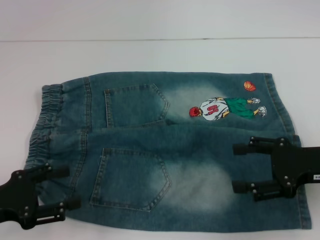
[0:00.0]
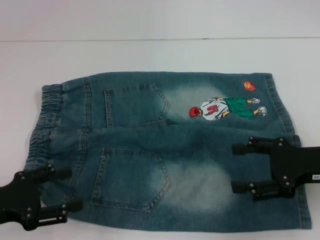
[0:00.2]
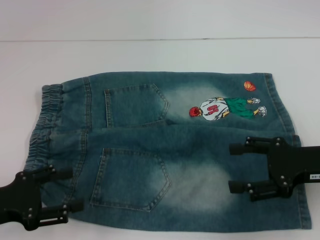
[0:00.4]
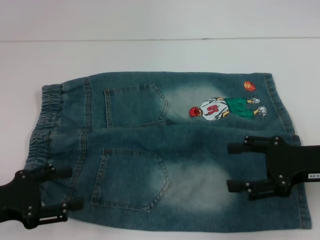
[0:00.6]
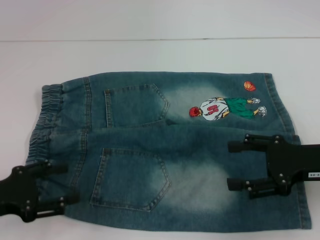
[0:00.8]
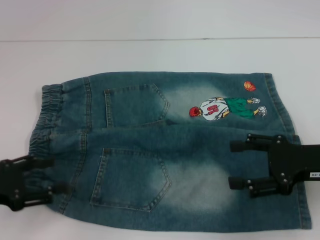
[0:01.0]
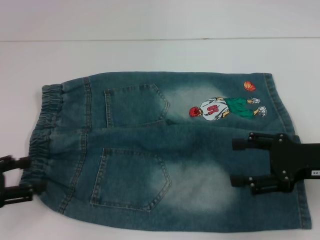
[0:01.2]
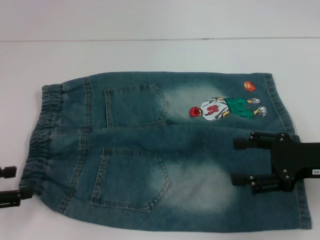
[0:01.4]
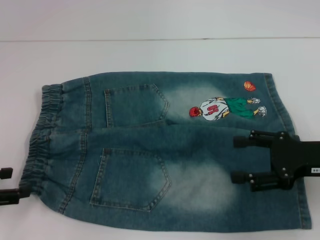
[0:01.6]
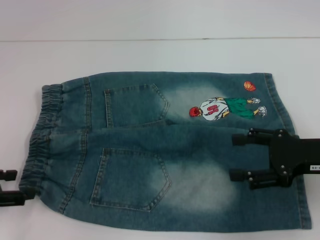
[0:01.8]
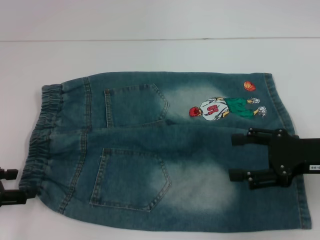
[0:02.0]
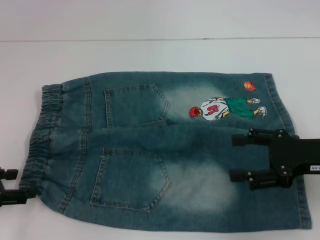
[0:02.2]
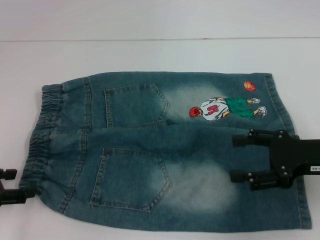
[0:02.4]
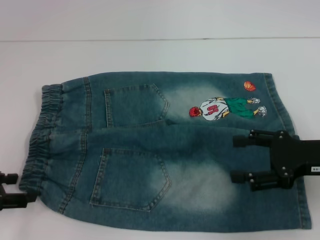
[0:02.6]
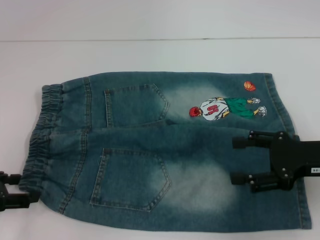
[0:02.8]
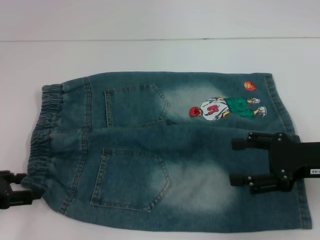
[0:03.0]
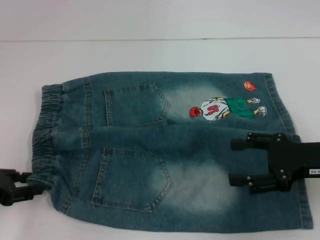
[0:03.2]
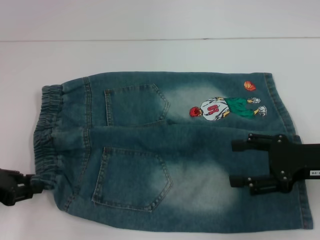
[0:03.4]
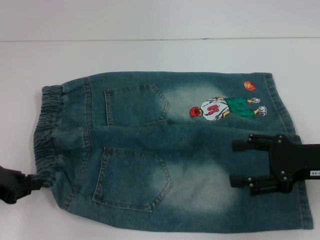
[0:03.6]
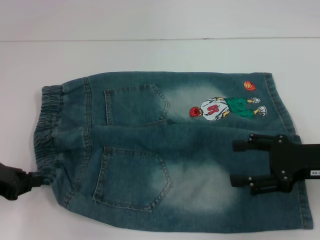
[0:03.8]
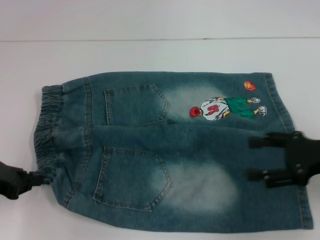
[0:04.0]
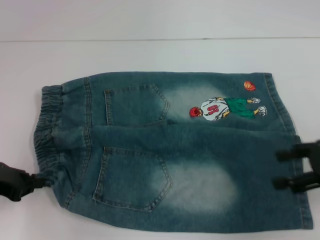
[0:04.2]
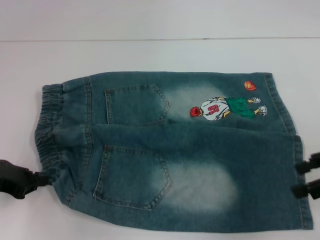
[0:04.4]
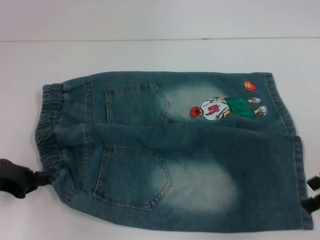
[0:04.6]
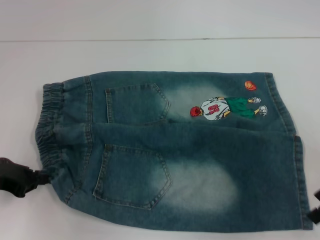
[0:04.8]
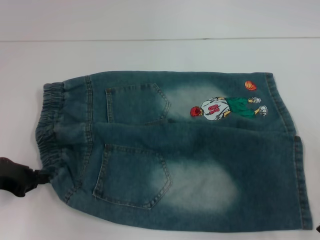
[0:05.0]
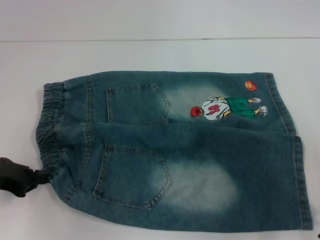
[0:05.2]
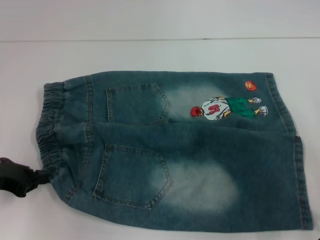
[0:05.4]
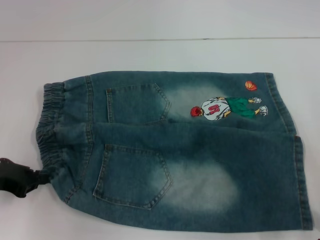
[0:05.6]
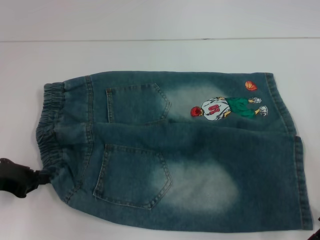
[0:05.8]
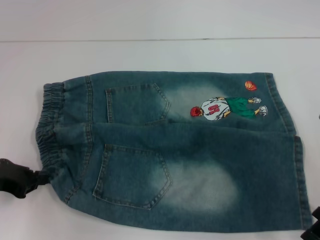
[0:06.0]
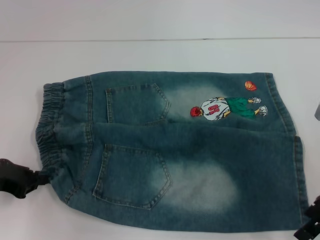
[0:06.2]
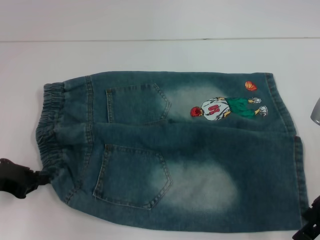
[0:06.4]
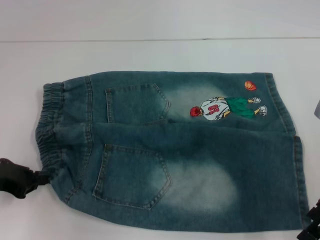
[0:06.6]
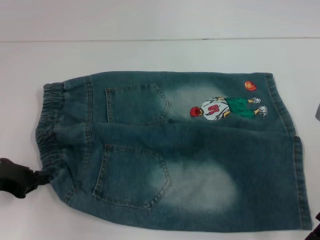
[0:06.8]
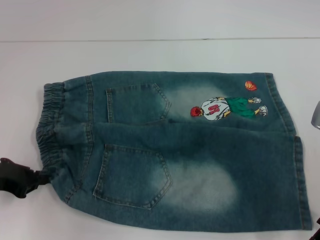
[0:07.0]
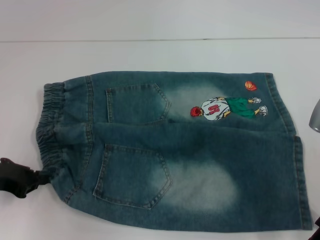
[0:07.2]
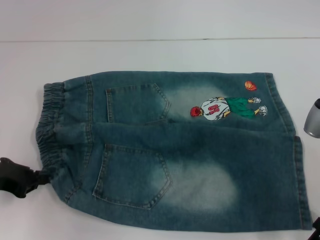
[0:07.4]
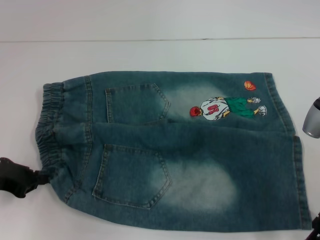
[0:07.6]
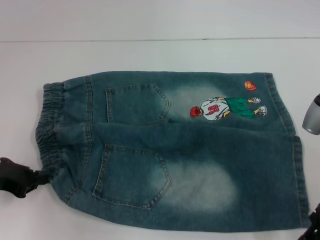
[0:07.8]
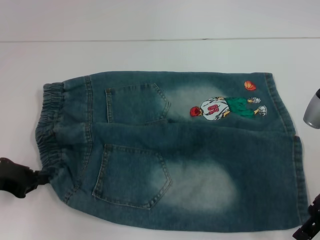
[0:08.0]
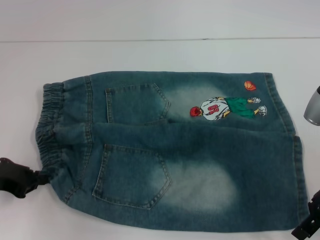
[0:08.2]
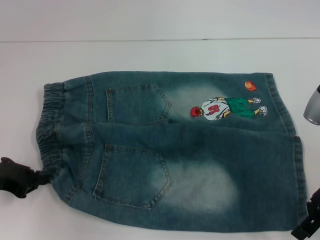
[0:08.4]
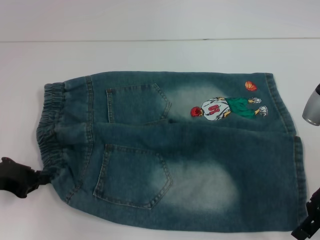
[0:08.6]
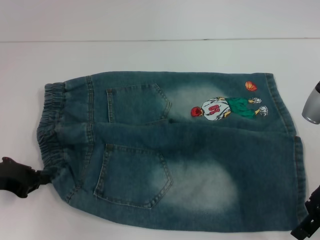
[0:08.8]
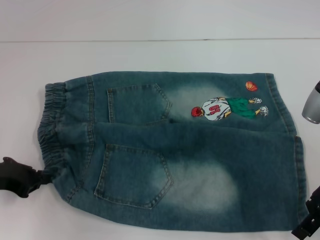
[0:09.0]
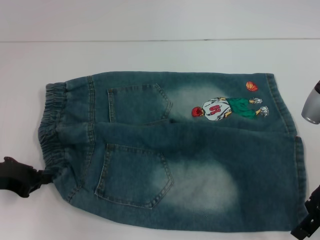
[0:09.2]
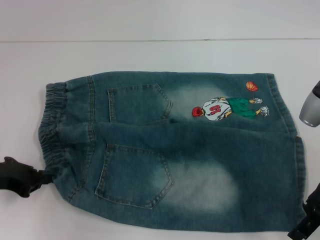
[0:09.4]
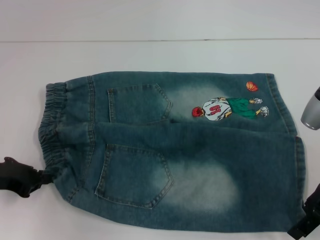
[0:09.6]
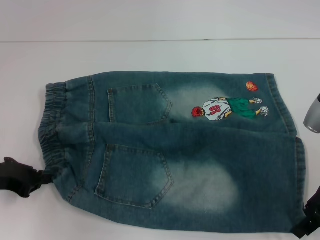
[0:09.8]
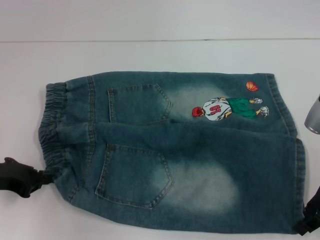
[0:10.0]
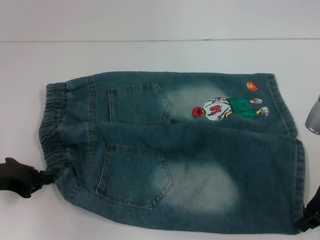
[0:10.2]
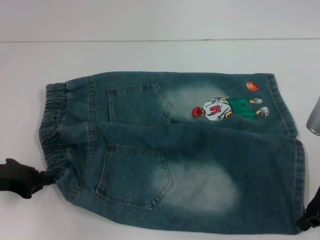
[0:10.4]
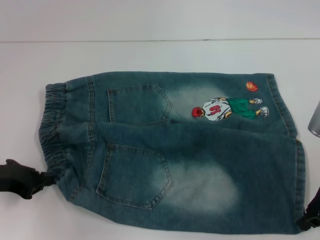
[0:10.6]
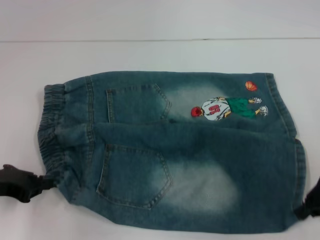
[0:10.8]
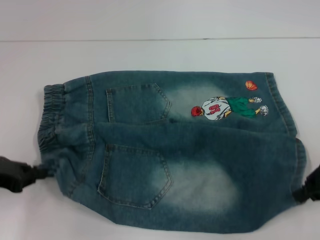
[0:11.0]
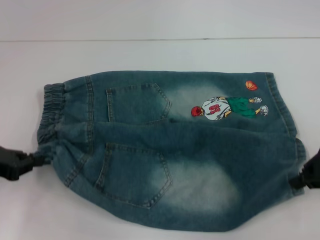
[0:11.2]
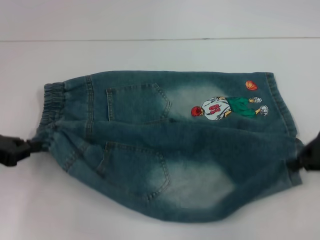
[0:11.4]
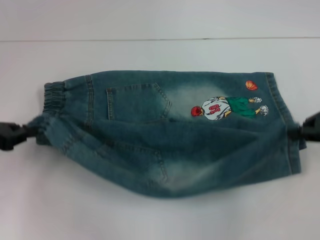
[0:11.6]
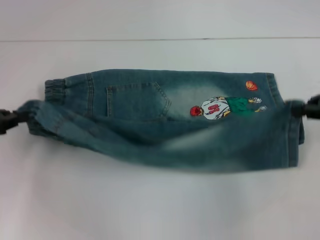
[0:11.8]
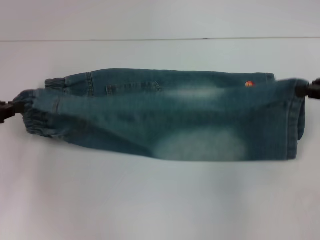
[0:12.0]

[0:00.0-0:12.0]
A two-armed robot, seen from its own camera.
Step, 0:00.0 to 0:03.8: Hold the lower left waistband with your left hand.
Step, 0:04.0 to 0:10.6: Grab the lower right pant leg with your right hand.
0:00.0 to 0:01.6: The left gripper moves about 5 cm.
0:01.6 to 0:03.0: The grippers stay close to where they were, moving slightly.
0:03.0 to 0:04.4: The left gripper closes; the right gripper is displaced upward by some 5 cm.
0:04.4 to 0:06.0: The right gripper shifts by some 5 cm.
0:06.0 to 0:09.0: The grippers stay close to where they were, moving slightly.
0:09.0 to 0:10.4: The right gripper closes.
0:10.4 to 0:12.0: The right gripper goes some 10 cm upward and to the right. The left gripper shifts approximately 5 cm upward.

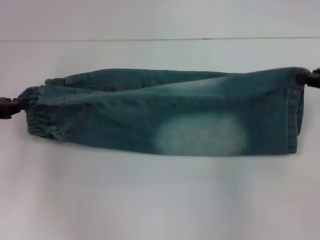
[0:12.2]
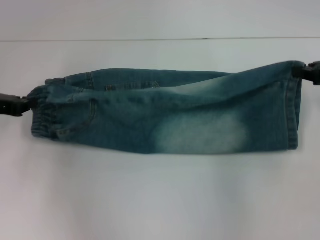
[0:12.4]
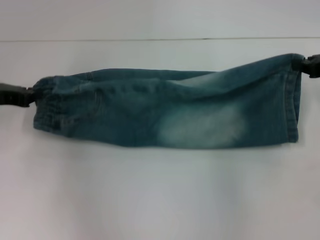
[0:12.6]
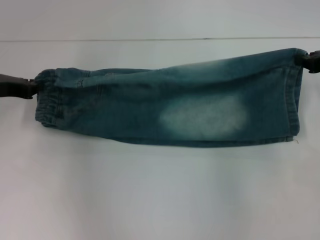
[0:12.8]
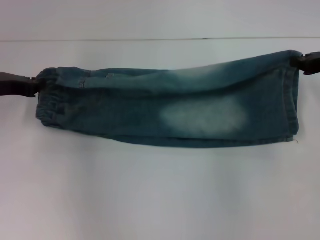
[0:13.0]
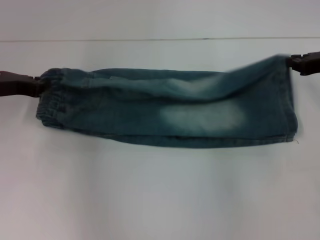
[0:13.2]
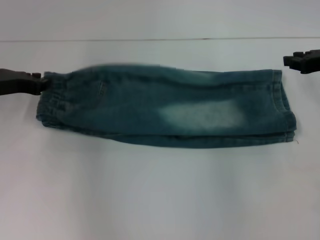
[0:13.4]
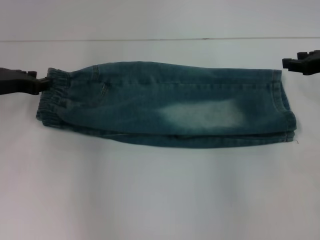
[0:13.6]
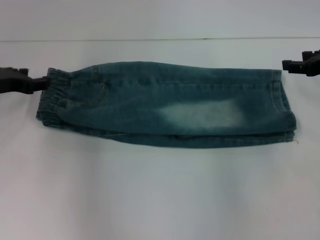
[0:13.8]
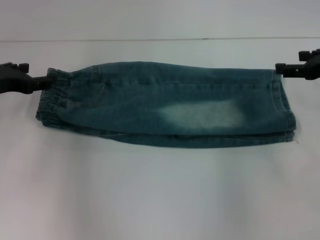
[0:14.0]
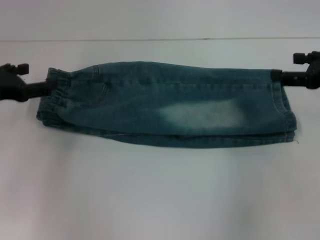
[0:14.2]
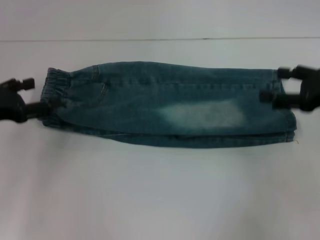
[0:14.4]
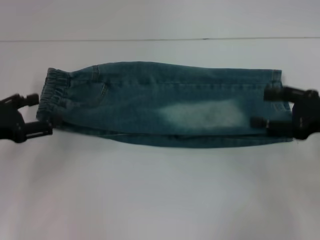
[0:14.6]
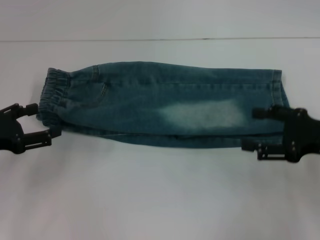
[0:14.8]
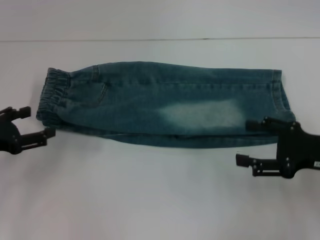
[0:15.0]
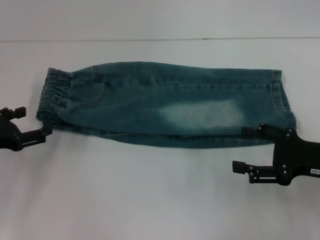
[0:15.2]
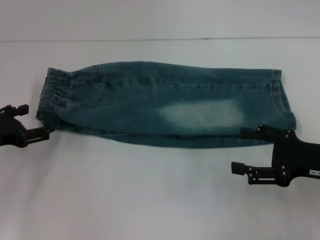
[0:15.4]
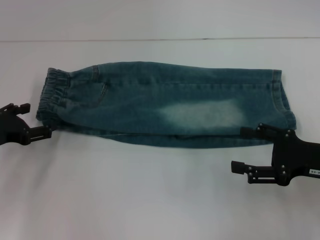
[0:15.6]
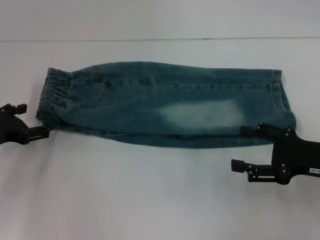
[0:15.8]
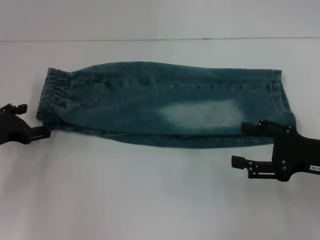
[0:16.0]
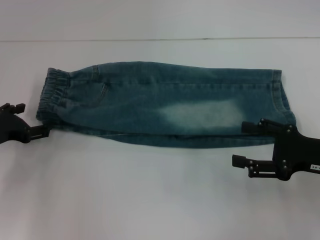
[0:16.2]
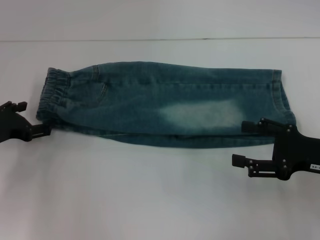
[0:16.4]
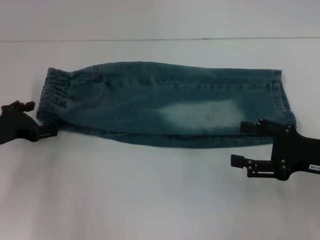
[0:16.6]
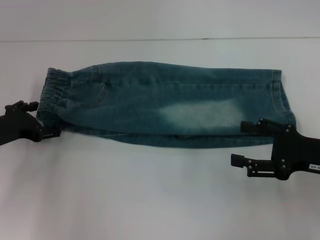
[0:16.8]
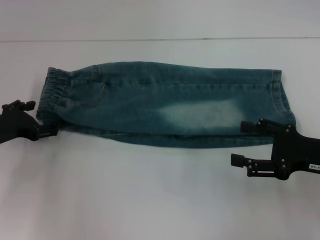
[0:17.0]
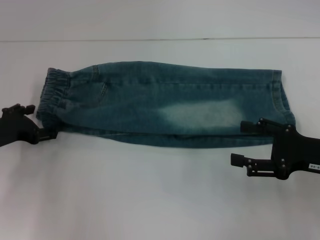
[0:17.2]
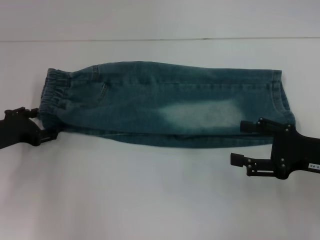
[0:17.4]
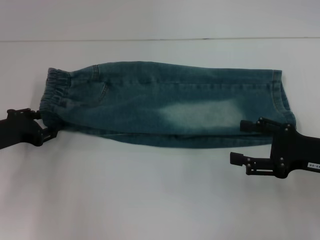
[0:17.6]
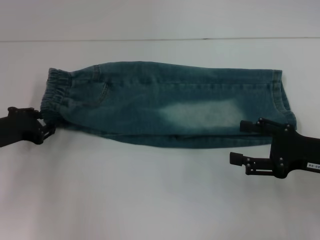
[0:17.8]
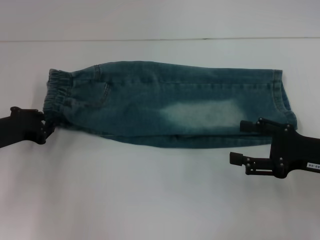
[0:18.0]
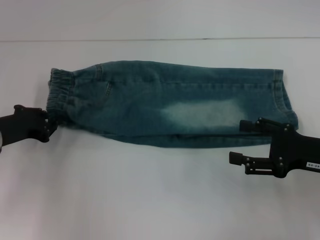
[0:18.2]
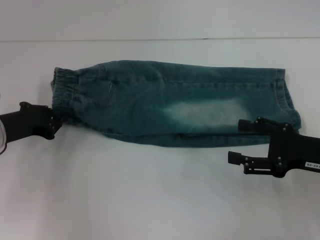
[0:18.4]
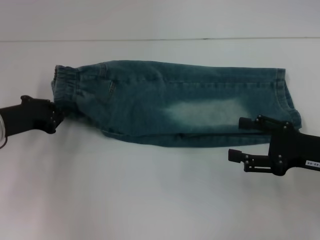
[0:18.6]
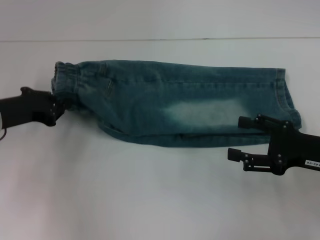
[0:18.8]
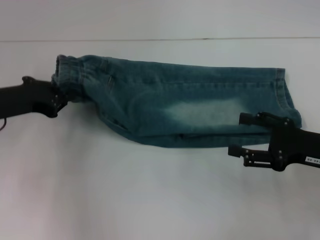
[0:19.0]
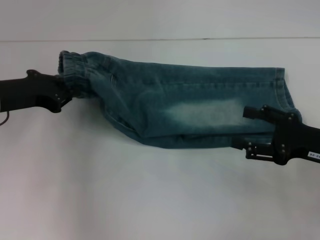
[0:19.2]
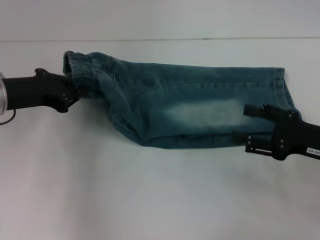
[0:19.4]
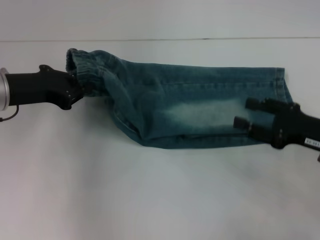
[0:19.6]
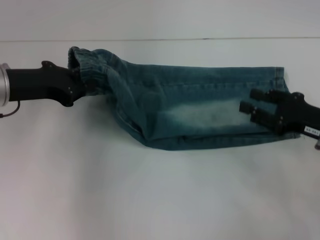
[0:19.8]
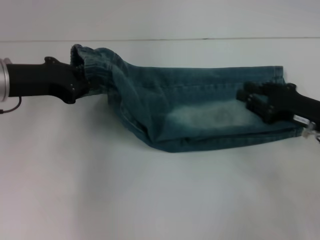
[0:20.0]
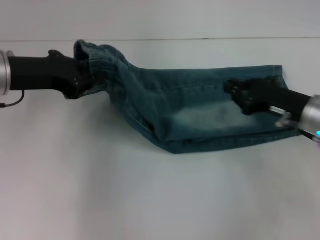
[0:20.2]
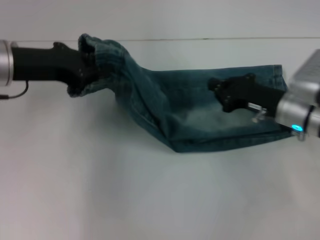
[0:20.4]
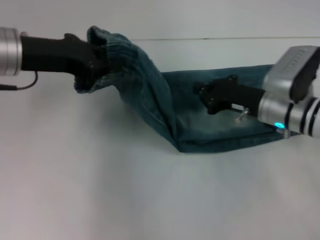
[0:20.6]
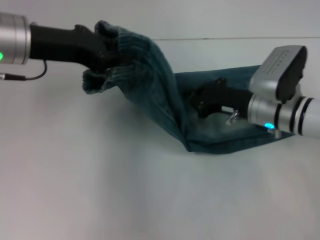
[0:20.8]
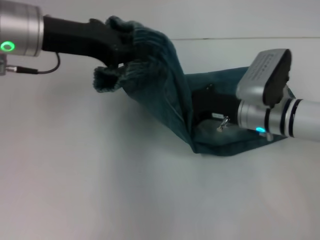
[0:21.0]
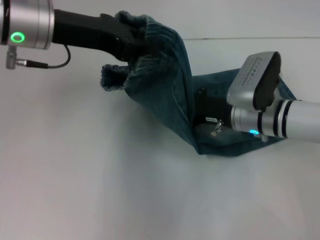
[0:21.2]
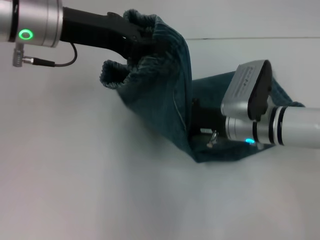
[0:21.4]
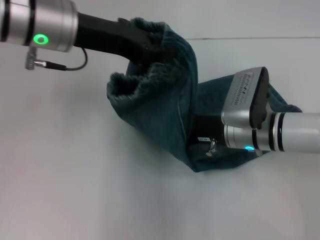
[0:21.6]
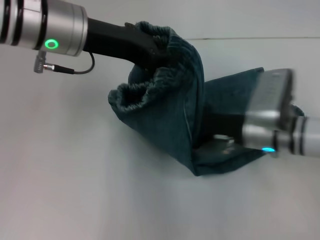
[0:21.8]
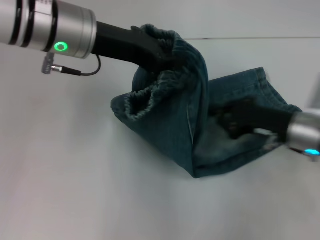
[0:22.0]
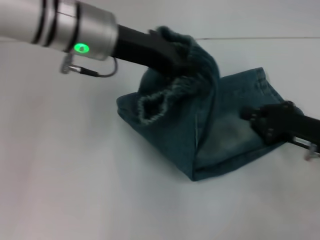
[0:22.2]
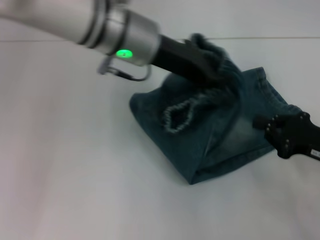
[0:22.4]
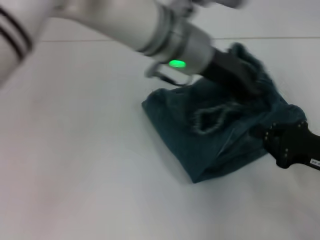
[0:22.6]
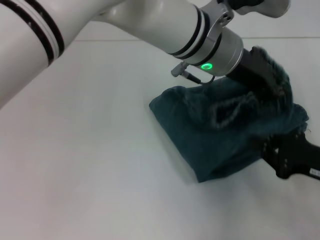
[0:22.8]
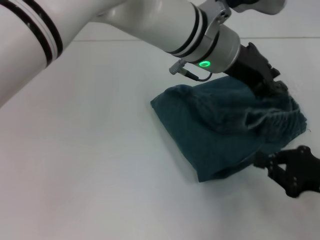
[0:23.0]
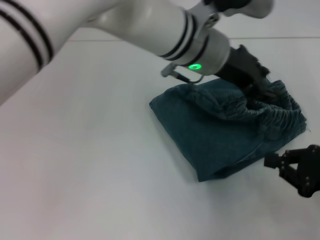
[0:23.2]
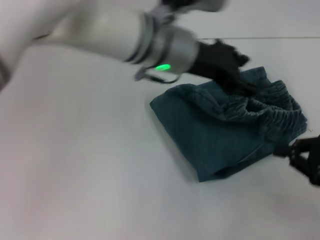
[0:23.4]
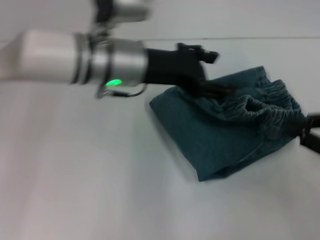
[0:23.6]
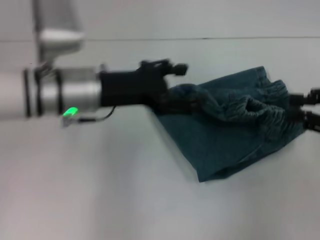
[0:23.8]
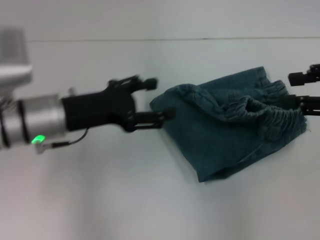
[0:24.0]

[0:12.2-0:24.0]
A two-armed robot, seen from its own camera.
Step, 0:12.2 to 0:13.8: Fold upward with your right hand.
Step, 0:14.0 to 0:18.4: Hold the waistband with your left hand.
Step, 0:18.6 to 0:21.8: Press the middle of the pants with your right hand.
Step, 0:22.2 to 0:23.6: Fold to the right with your left hand.
0:12.2 to 0:13.6: The left gripper is displaced to the right by roughly 5 cm; the right gripper moves some 5 cm.
0:13.6 to 0:15.2: The left gripper is displaced backward by approximately 10 cm, and opens. The right gripper moves backward and downward, roughly 15 cm, and opens its fingers.
0:15.2 to 0:16.6: The left gripper ends up about 5 cm from where it was.
0:16.6 to 0:18.2: The left gripper closes up.
0:18.2 to 0:19.6: The left gripper goes about 10 cm upward.
0:19.6 to 0:21.0: The left gripper goes some 10 cm upward and to the right. The right gripper goes about 15 cm to the left and forward, and closes.
0:21.0 to 0:22.6: The left gripper goes approximately 20 cm to the right. Meanwhile the right gripper heads to the right and backward, covering approximately 15 cm.
0:22.6 to 0:24.0: The right gripper moves upward, about 15 cm, and opens; the left gripper heads to the left and downward, covering about 20 cm, and opens up.
